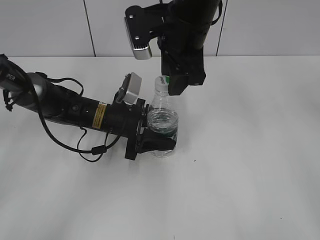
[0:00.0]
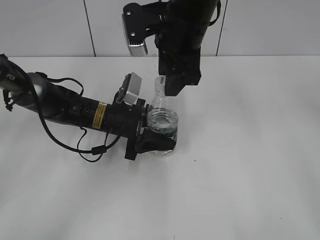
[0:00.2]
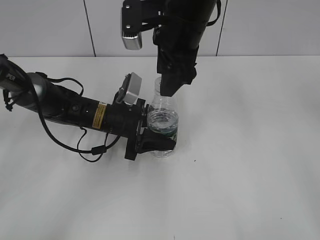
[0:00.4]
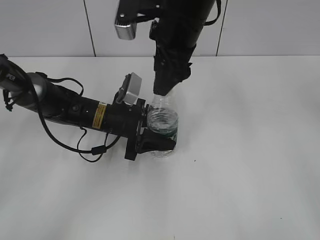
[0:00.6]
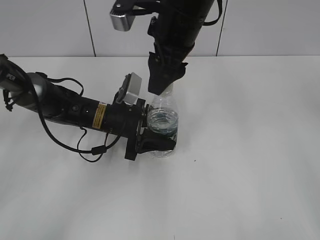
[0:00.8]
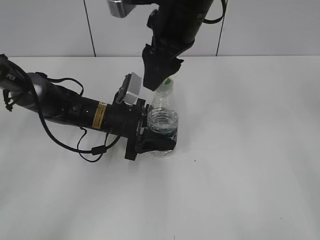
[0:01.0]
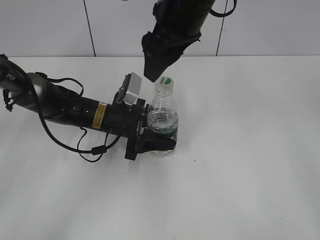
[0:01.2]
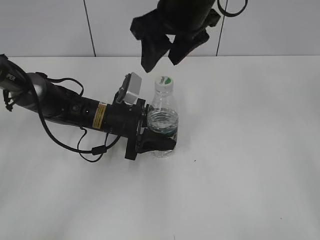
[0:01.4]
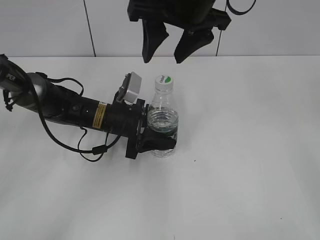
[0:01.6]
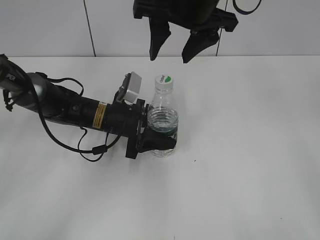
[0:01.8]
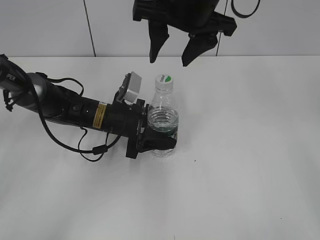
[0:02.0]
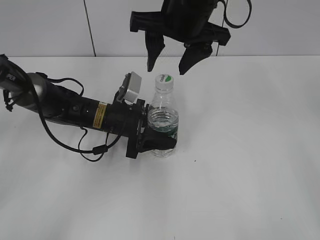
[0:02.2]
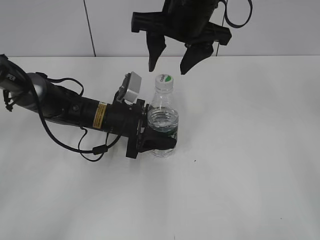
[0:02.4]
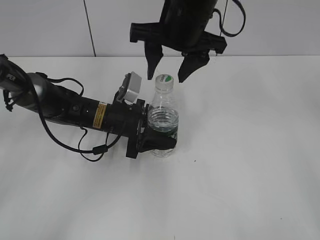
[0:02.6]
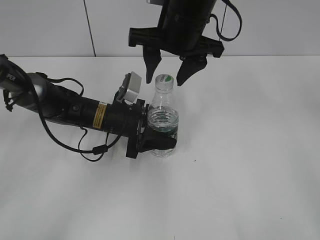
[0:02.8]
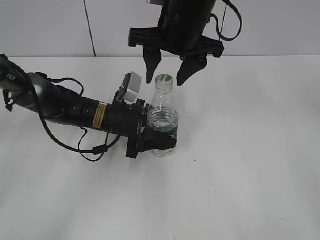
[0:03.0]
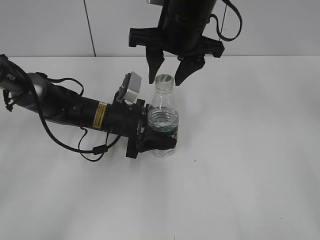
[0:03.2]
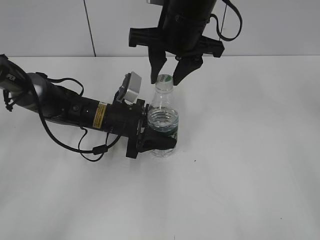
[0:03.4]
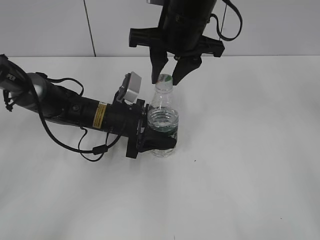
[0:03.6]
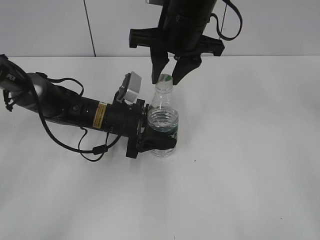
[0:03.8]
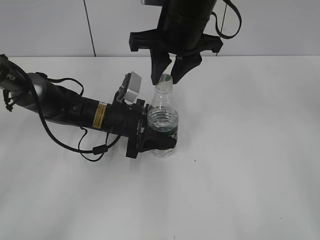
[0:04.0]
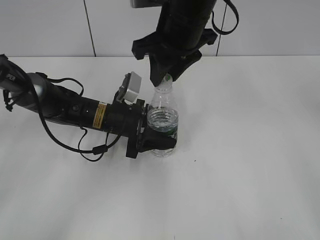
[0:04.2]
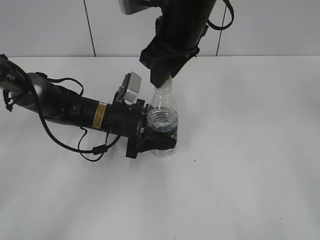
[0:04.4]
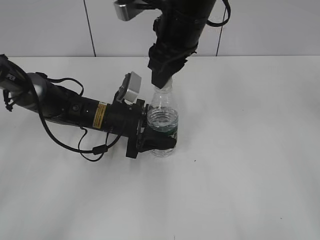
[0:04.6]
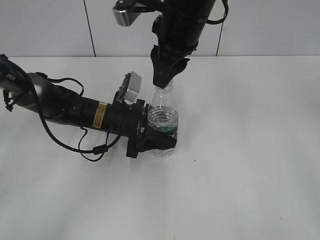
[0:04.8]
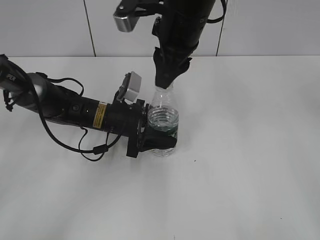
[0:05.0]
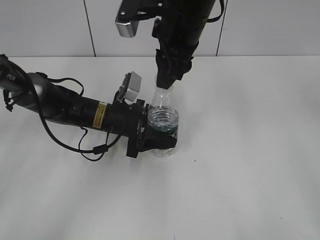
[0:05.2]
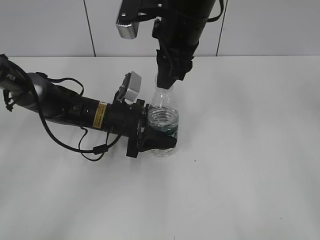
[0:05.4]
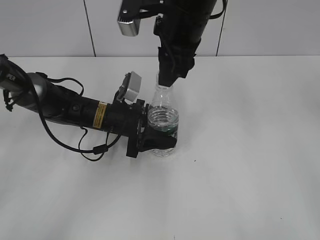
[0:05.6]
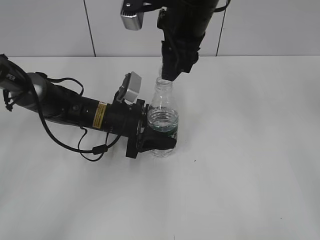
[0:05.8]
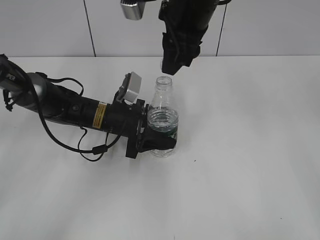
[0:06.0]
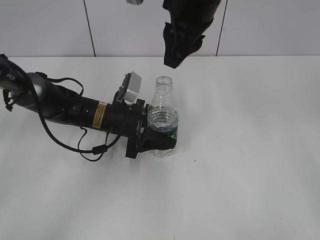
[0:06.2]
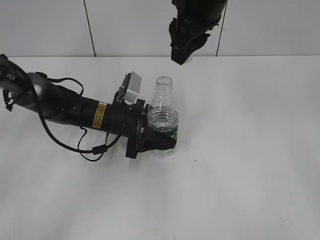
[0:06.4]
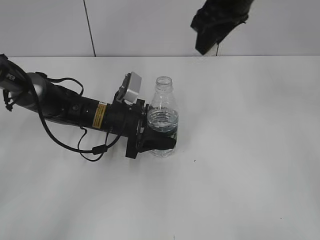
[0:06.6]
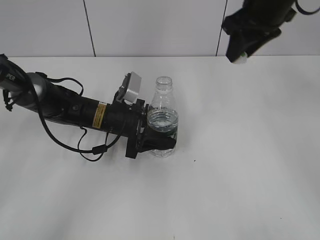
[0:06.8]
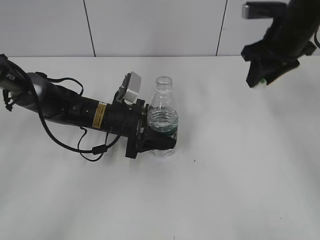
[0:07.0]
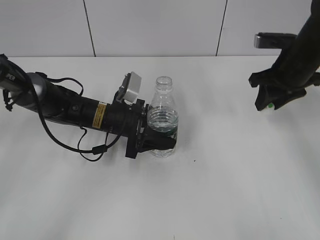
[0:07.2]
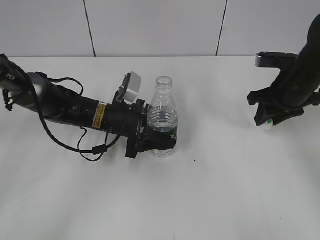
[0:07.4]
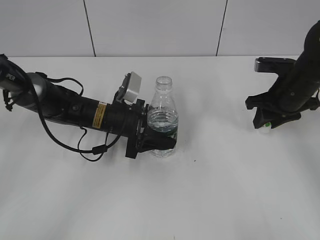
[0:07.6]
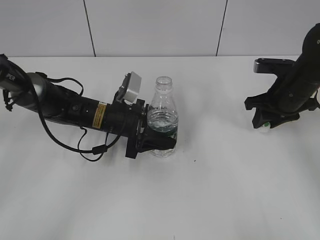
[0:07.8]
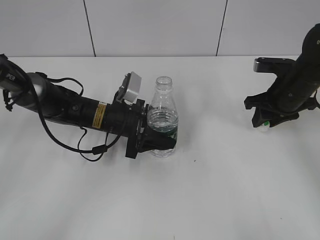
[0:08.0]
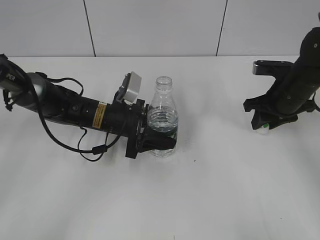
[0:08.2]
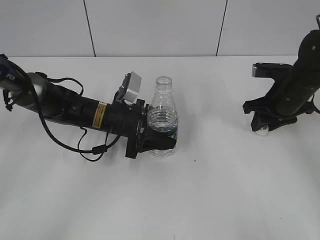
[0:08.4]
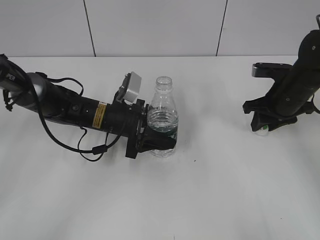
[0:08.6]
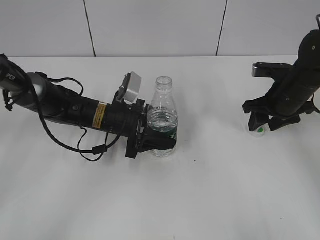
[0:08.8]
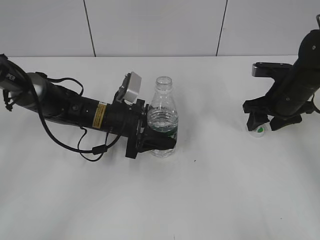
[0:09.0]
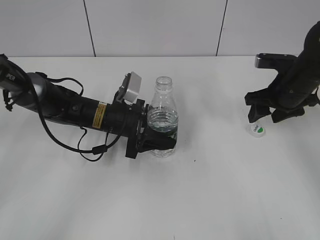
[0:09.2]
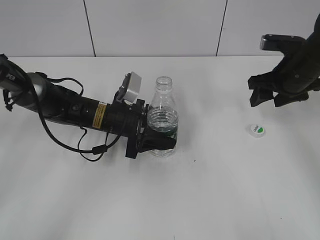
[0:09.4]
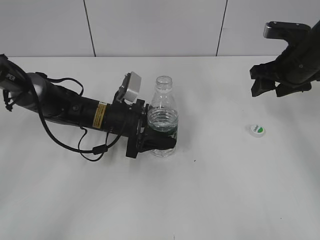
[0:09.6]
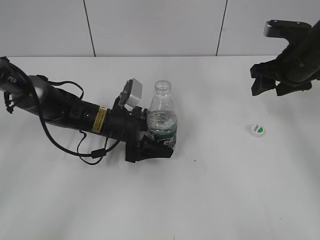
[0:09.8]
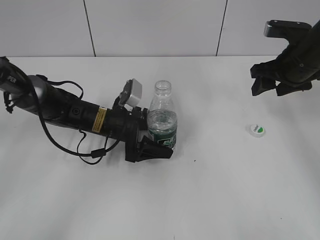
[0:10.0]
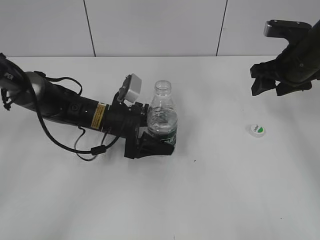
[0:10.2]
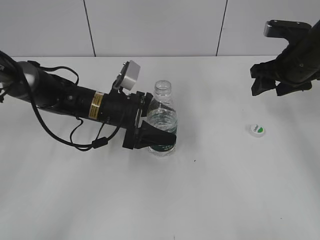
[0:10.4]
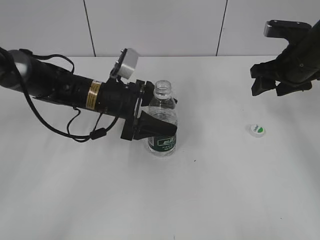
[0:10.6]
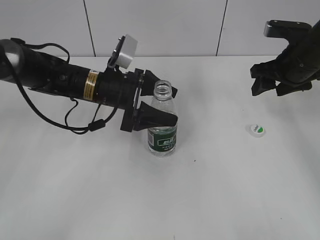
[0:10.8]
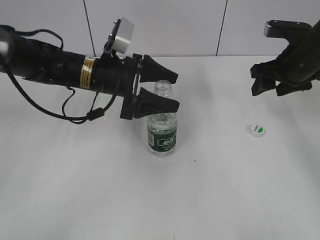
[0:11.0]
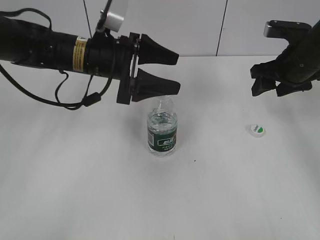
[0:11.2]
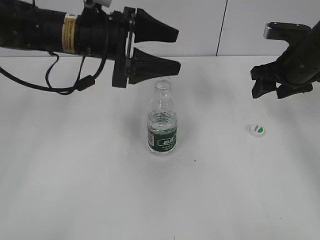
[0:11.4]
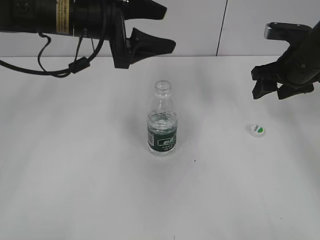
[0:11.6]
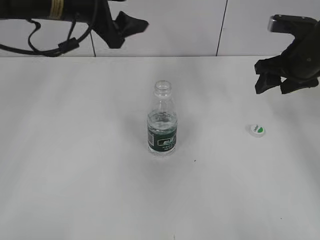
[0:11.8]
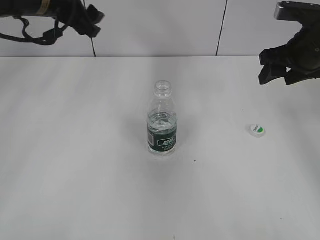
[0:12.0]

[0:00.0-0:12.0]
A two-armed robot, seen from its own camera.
Step, 0:00.0 to 0:06.0: Unscrew the bottle cap with the right gripper while holding the bottle with the left gripper.
Step, 0:06.2 to 0:09.2: Place the bottle cap on the table with the right gripper.
Step, 0:09.4 to 0:11.0: Place the bottle on the table with the left gripper.
0:00.0 to 0:01.6: The right gripper shifts some 5 cm upward, and opens up.
0:01.6 to 0:03.0: The grippers move only a little.
0:03.0 to 0:04.4: The right gripper closes its fingers.
0:06.0 to 0:07.6: The right gripper is displaced to the right and downward by about 25 cm.
0:07.6 to 0:09.0: The right gripper opens up.
0:09.0 to 0:10.4: The right gripper is displaced upward by about 5 cm. The left gripper opens up.
0:10.4 to 0:12.0: The left gripper travels upward by about 20 cm.

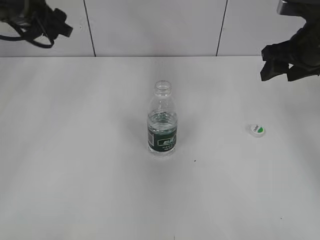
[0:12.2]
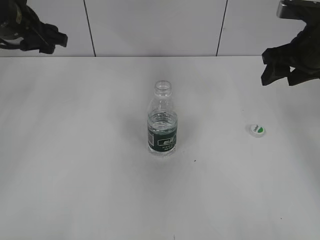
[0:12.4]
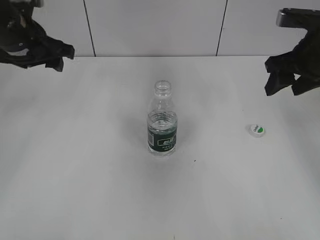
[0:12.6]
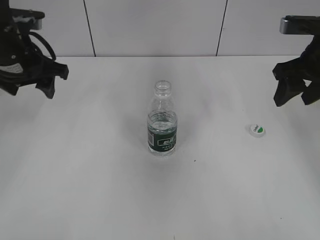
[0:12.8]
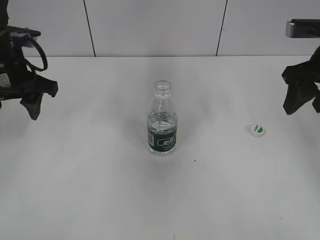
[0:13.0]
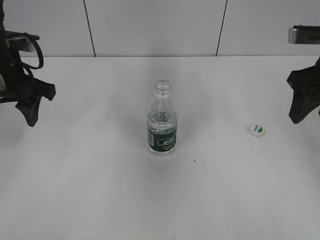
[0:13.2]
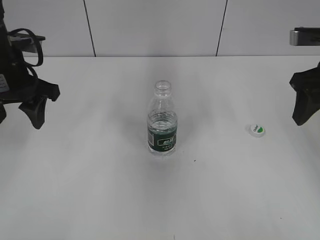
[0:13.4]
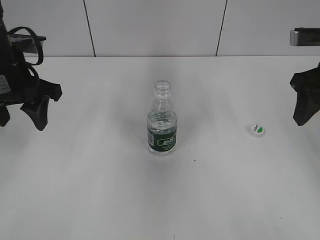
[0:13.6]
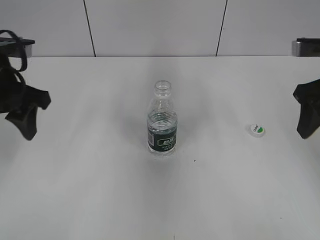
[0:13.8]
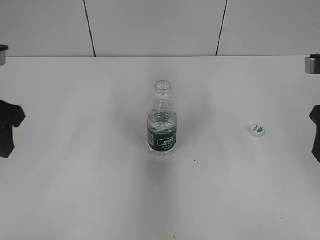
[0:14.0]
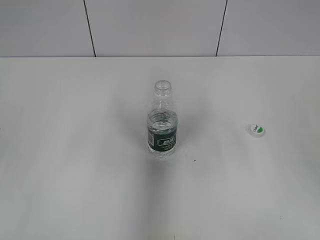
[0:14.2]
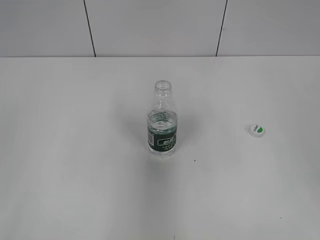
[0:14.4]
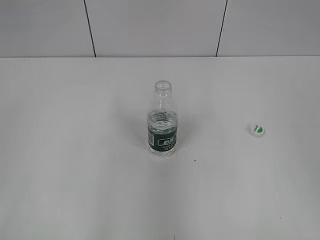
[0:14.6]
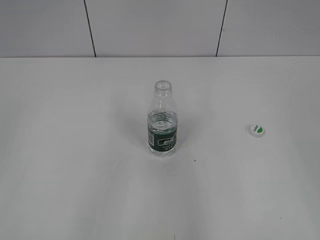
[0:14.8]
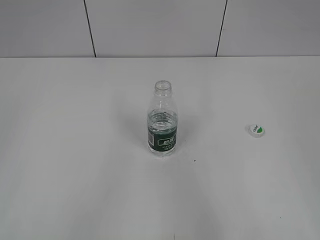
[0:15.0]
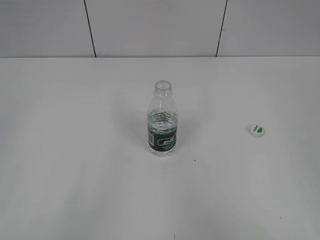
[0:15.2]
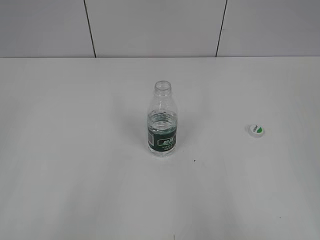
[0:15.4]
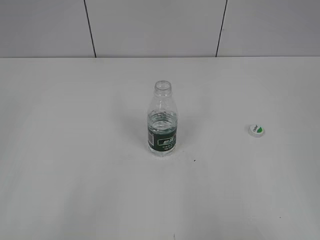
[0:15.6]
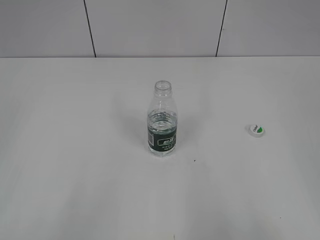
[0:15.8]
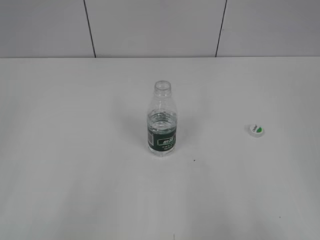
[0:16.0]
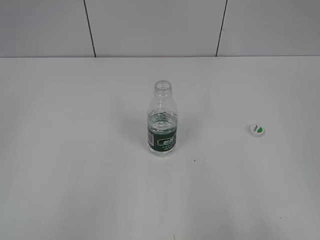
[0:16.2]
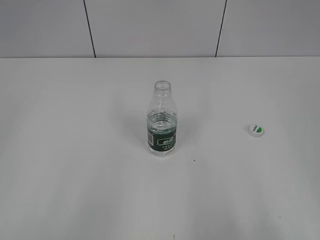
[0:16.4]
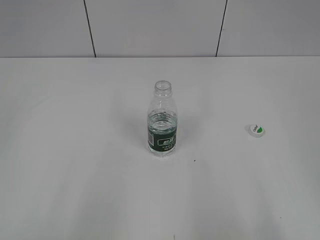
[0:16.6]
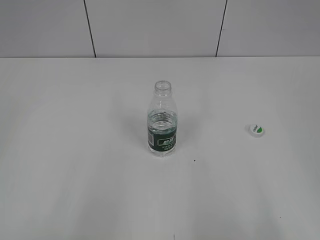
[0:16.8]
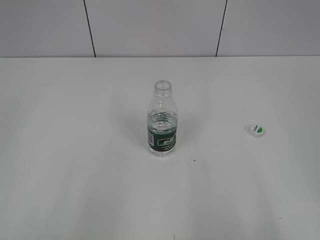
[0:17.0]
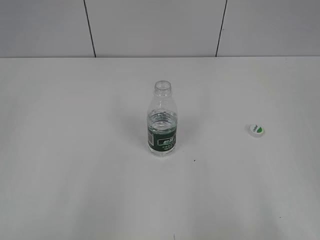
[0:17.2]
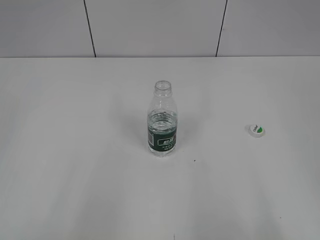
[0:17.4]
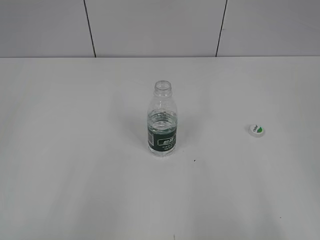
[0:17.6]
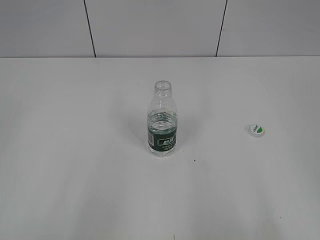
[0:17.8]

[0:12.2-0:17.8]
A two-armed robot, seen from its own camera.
0:12.2 to 0:13.6: The right gripper moves backward, roughly 5 cm. Meanwhile the left gripper shifts roughly 10 cm backward.
0:13.6 to 0:15.0: The two grippers go about 30 cm backward.

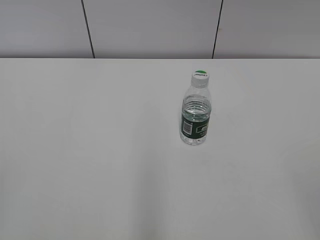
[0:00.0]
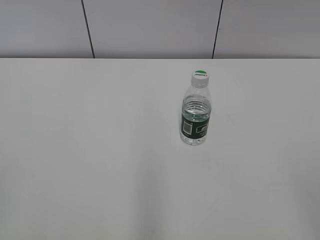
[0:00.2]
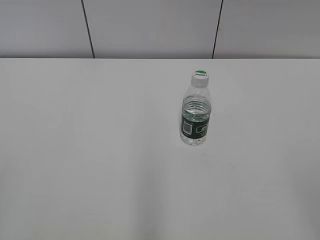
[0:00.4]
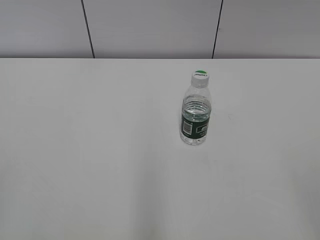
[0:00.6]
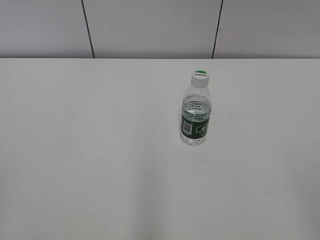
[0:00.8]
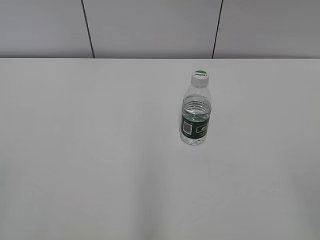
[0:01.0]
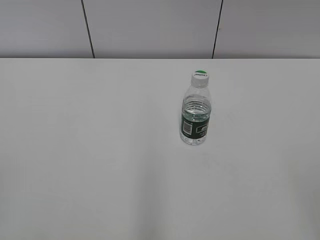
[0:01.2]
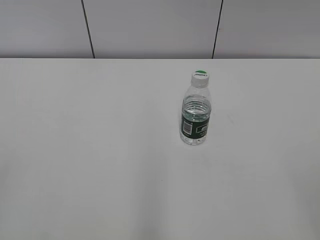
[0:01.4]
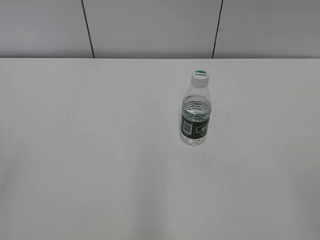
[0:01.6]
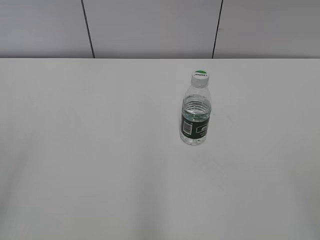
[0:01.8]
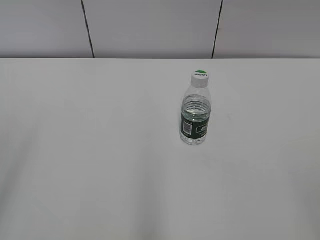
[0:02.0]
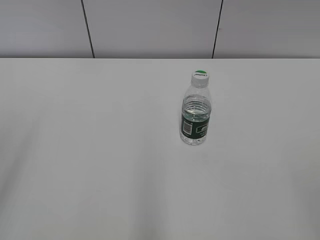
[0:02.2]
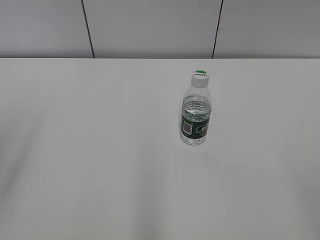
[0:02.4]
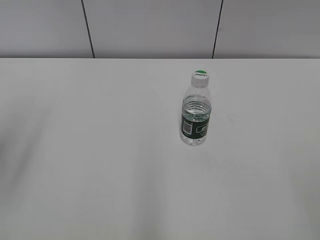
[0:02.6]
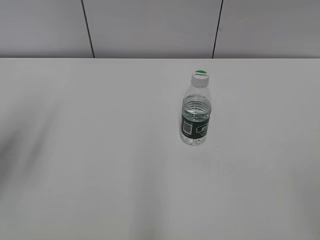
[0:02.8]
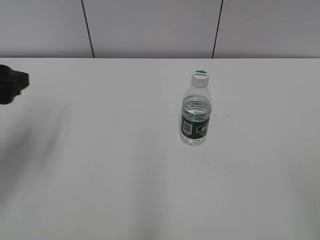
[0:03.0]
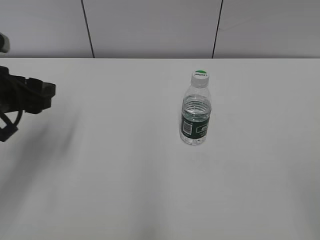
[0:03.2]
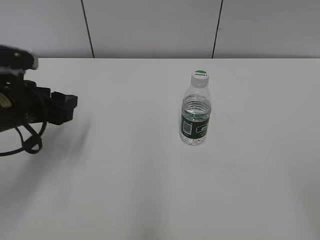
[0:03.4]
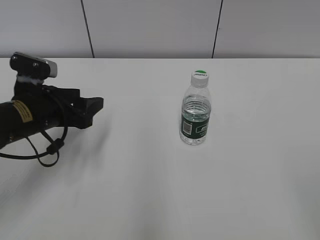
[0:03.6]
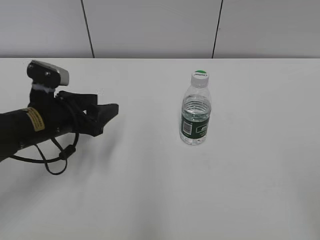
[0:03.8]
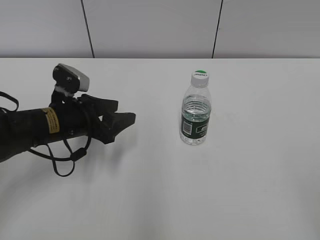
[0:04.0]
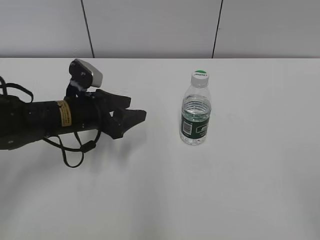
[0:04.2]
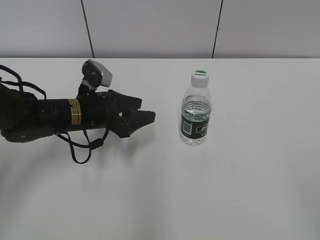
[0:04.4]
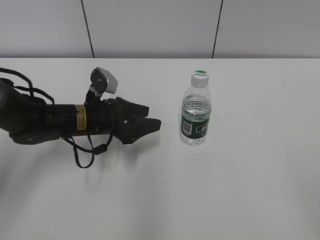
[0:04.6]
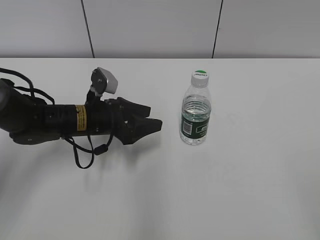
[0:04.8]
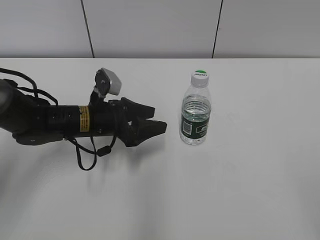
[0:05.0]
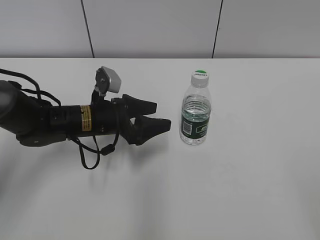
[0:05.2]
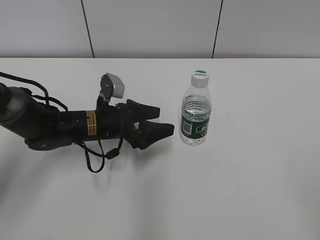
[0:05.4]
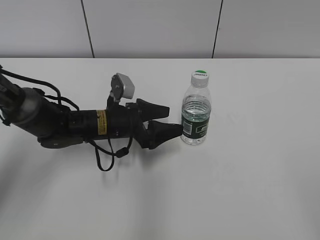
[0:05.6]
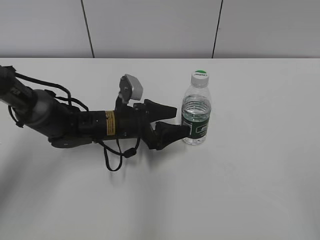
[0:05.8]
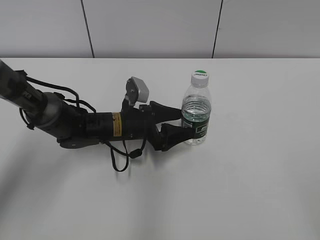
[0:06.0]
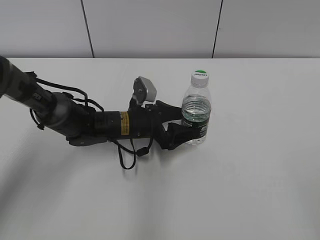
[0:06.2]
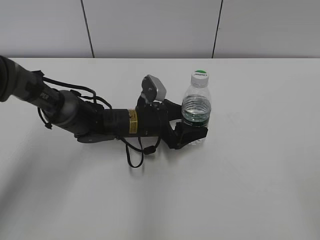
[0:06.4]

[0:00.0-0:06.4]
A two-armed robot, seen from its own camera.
0:01.6 to 0:03.2: The left gripper is displaced forward and downward by roughly 25 cm.
0:03.2 to 0:04.8: The left gripper heads to the right, downward and forward, covering some 20 cm.
0:04.8 to 0:06.4: The left gripper shifts roughly 10 cm to the right, and opens its fingers.
